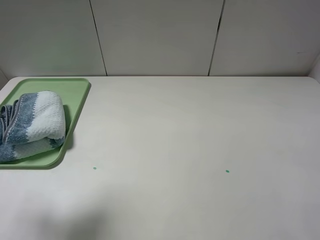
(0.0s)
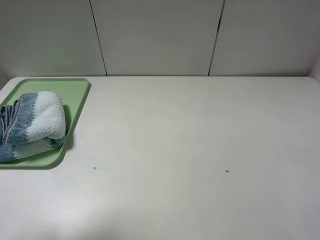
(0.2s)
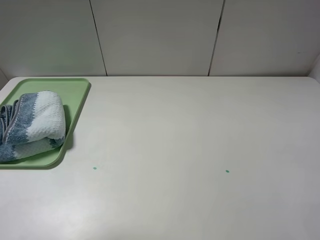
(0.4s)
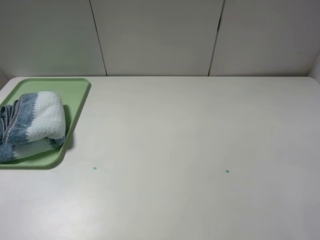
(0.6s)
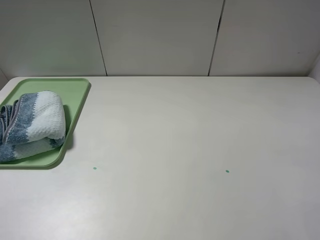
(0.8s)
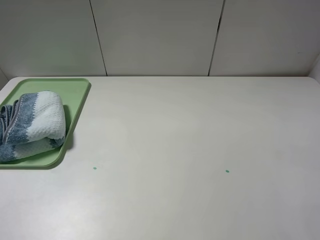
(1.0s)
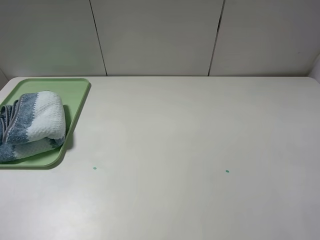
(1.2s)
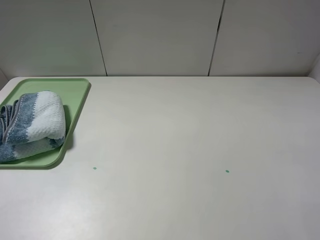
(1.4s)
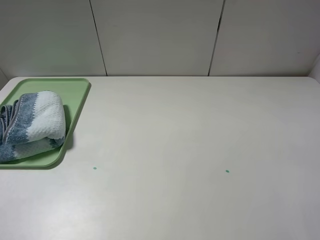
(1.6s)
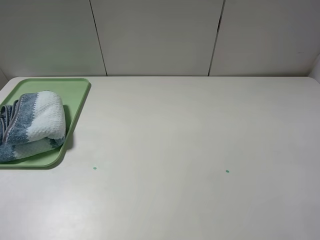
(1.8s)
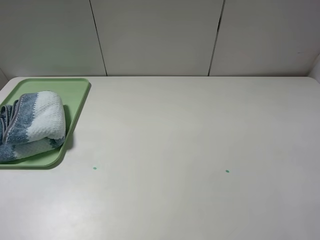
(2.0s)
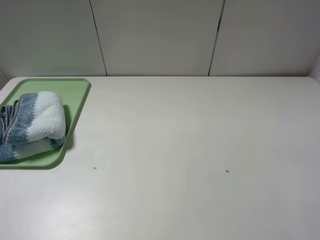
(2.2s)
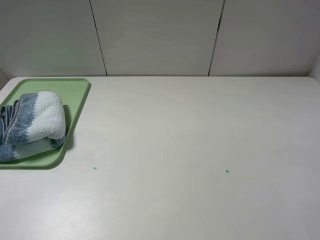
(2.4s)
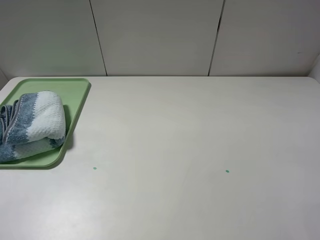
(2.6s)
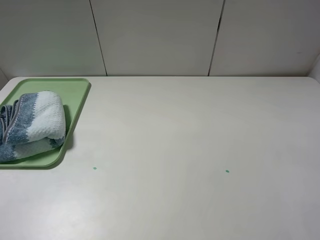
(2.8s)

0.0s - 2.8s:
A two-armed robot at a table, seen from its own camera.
0.0s - 1.4s: The left gripper shifts some 15 cm backward.
